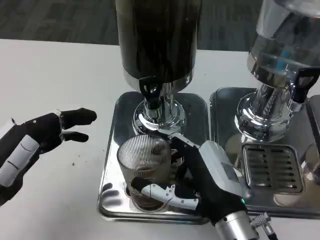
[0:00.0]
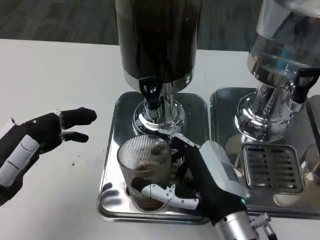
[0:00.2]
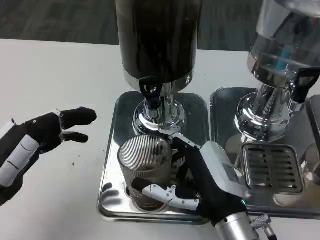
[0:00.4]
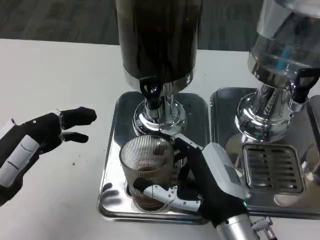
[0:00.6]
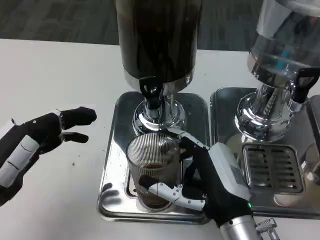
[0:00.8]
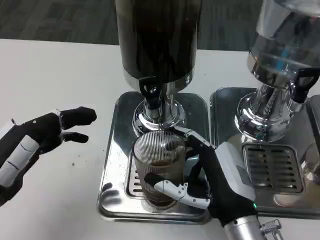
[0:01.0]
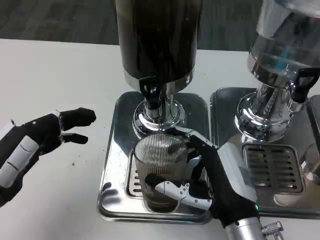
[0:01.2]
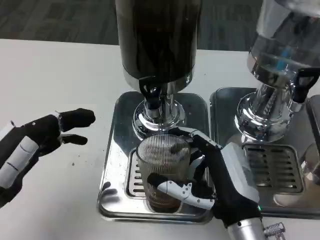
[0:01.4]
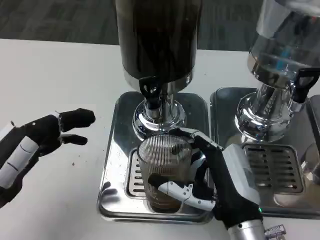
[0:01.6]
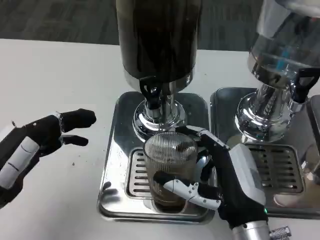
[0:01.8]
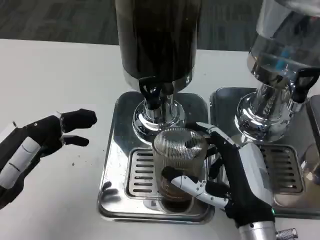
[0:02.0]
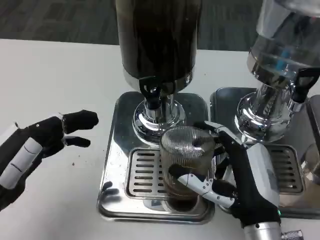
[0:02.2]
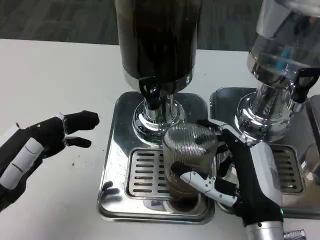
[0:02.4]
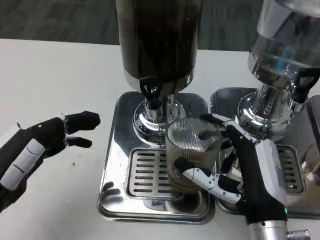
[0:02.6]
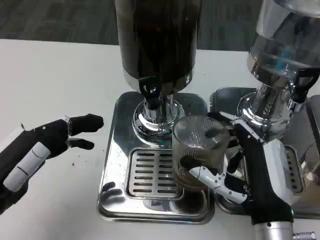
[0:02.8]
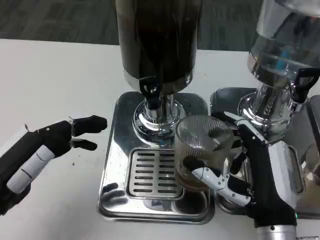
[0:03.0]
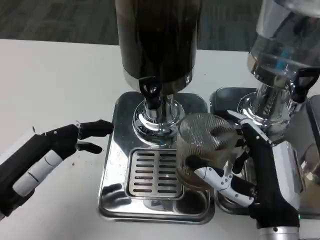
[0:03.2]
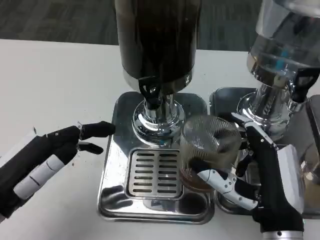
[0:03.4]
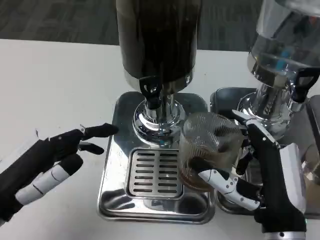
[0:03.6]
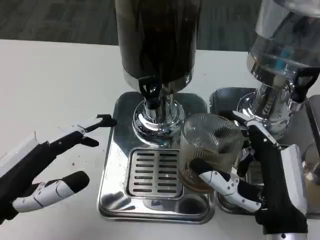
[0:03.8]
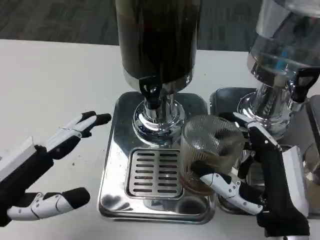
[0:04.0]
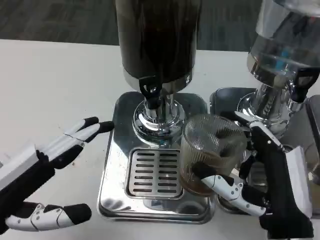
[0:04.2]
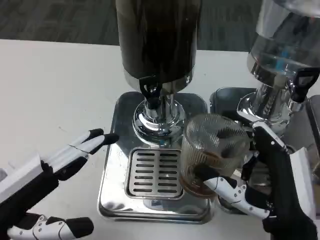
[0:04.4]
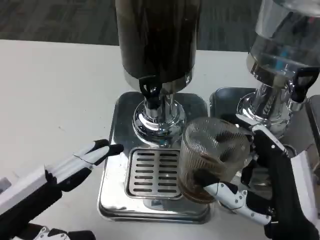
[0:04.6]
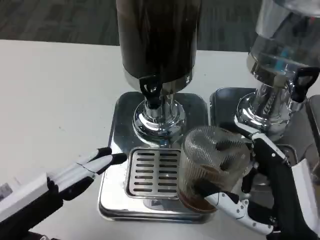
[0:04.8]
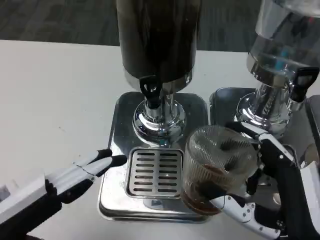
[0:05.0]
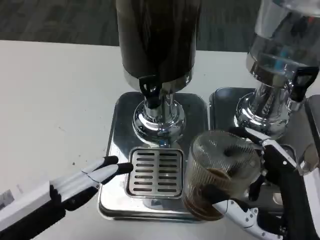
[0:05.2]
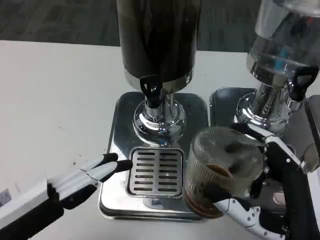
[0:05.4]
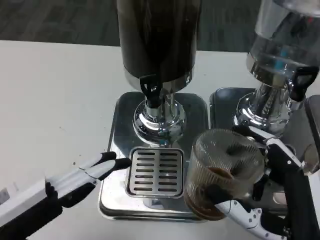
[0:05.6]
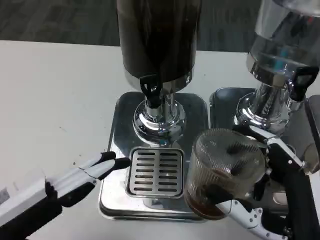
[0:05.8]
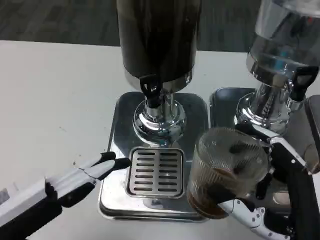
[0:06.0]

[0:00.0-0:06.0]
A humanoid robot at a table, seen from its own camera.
Task of the whole recording: Grasp the cup under the faucet to collect the drink, then remove the cup.
0:00.0 to 0:01.6: The hands make only small movements.

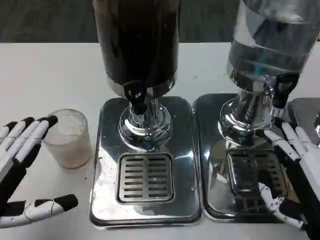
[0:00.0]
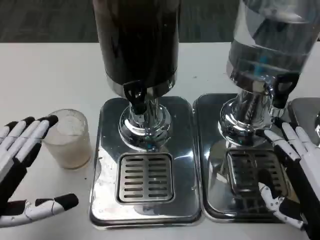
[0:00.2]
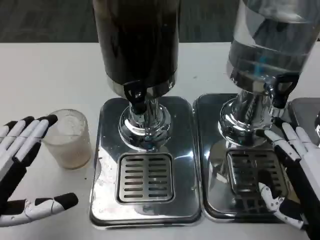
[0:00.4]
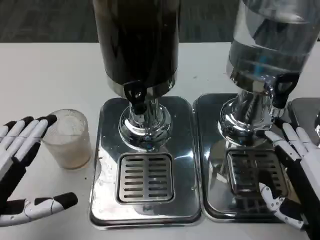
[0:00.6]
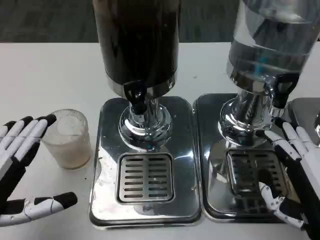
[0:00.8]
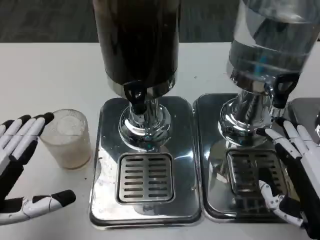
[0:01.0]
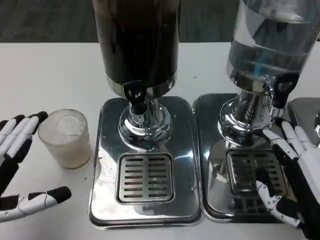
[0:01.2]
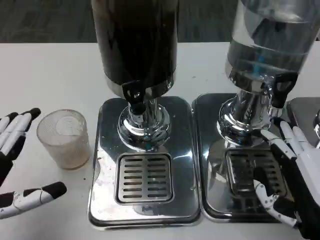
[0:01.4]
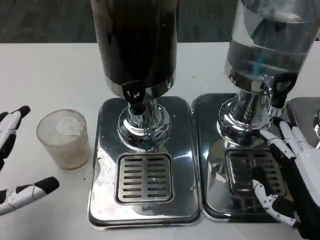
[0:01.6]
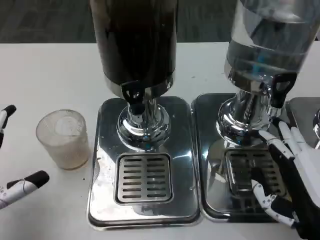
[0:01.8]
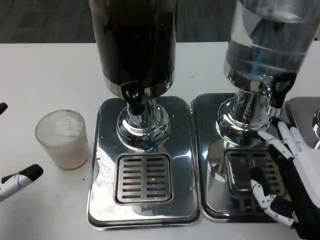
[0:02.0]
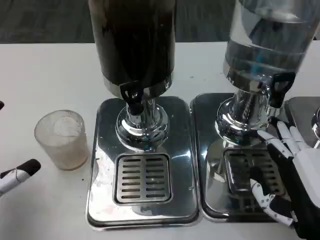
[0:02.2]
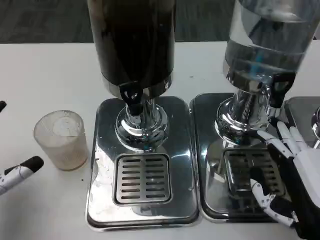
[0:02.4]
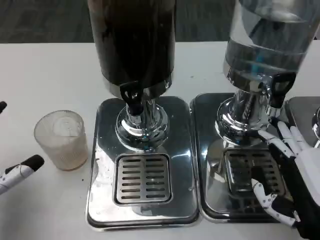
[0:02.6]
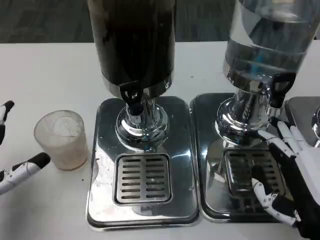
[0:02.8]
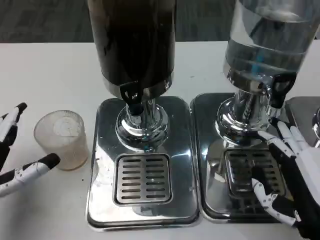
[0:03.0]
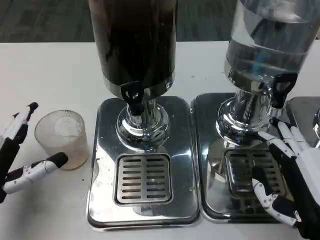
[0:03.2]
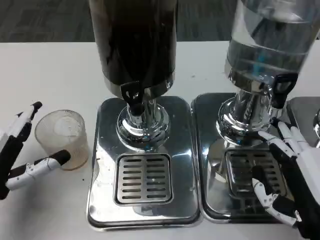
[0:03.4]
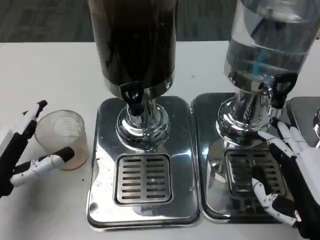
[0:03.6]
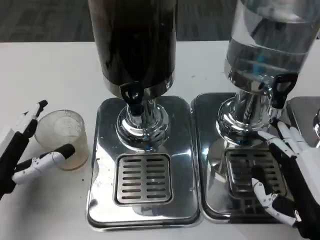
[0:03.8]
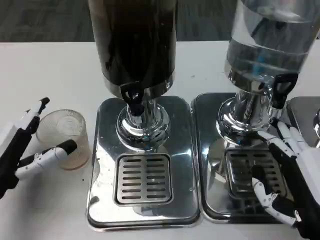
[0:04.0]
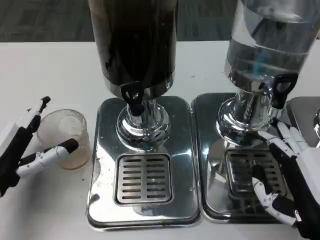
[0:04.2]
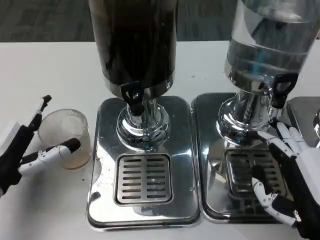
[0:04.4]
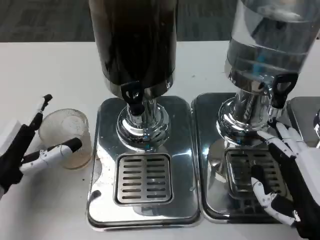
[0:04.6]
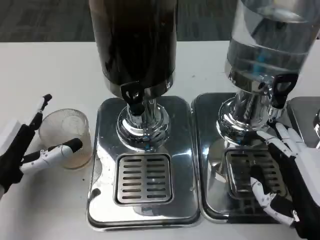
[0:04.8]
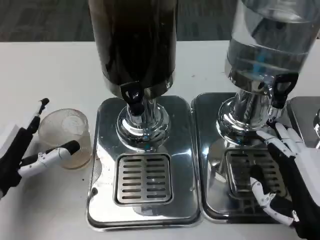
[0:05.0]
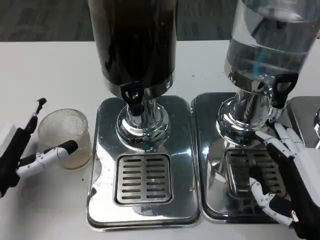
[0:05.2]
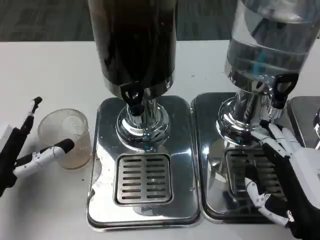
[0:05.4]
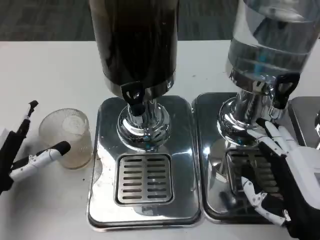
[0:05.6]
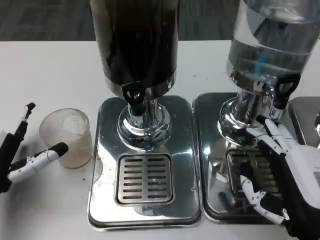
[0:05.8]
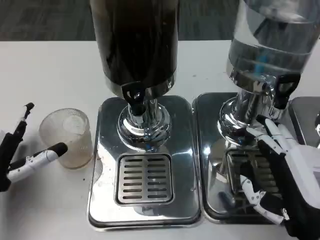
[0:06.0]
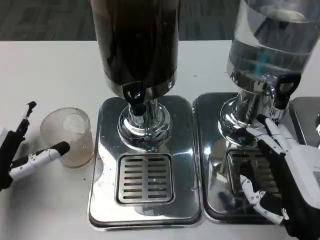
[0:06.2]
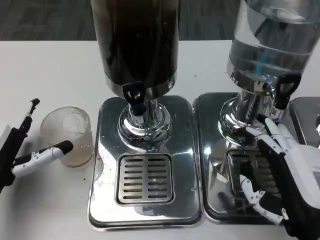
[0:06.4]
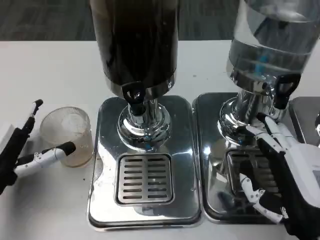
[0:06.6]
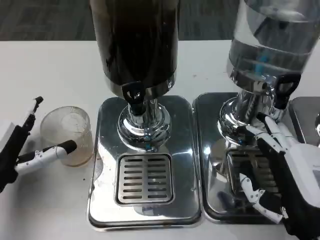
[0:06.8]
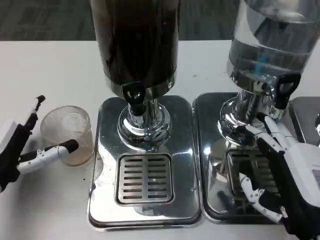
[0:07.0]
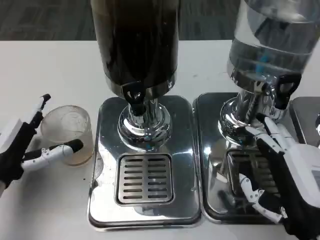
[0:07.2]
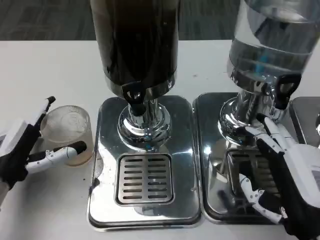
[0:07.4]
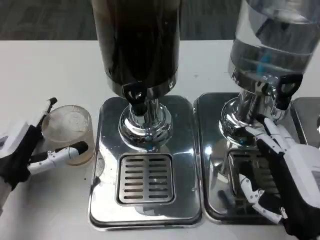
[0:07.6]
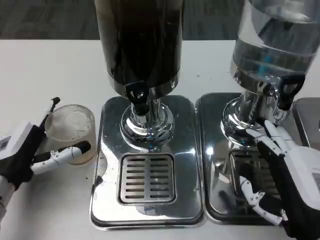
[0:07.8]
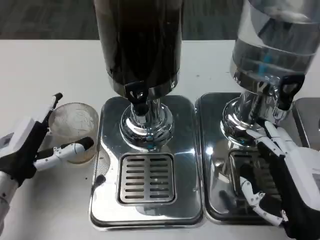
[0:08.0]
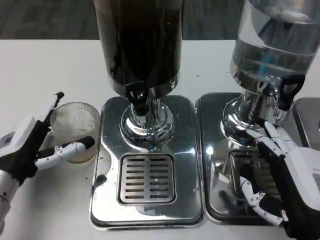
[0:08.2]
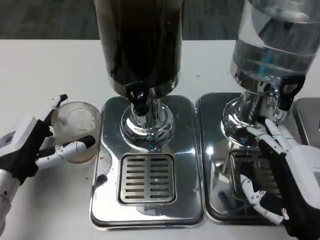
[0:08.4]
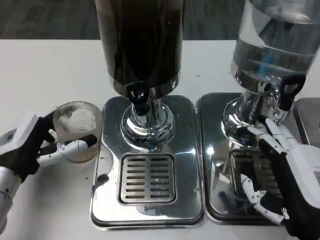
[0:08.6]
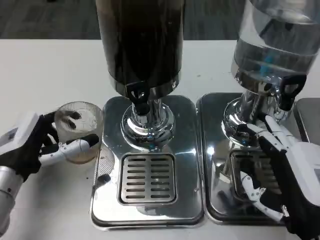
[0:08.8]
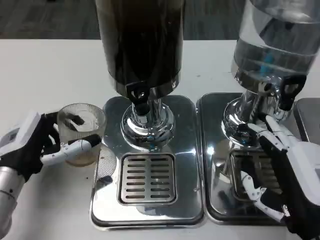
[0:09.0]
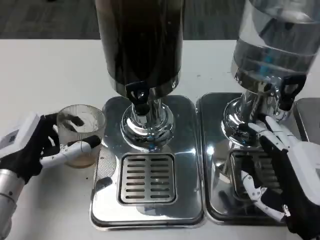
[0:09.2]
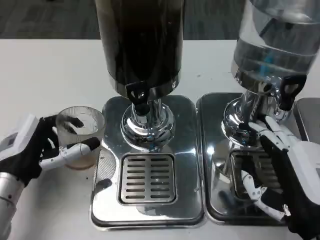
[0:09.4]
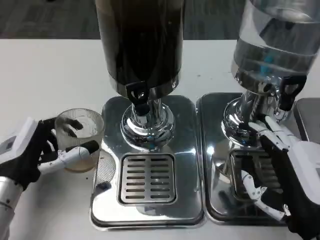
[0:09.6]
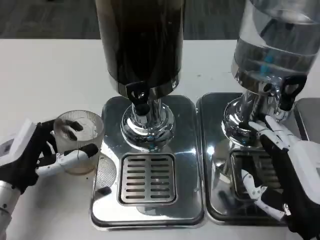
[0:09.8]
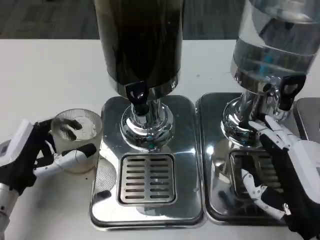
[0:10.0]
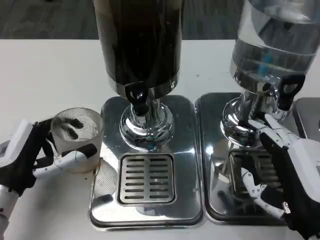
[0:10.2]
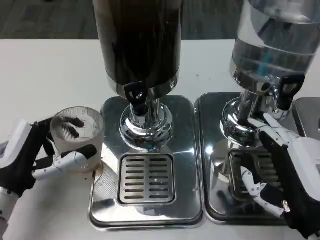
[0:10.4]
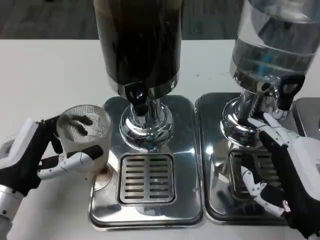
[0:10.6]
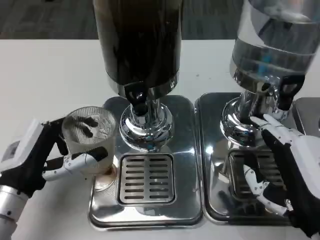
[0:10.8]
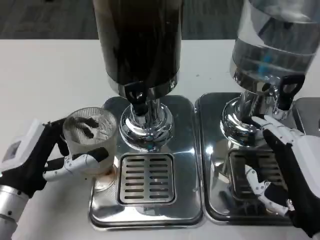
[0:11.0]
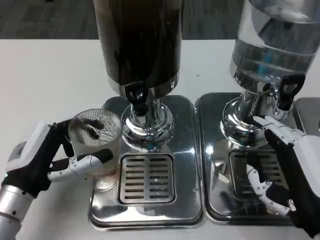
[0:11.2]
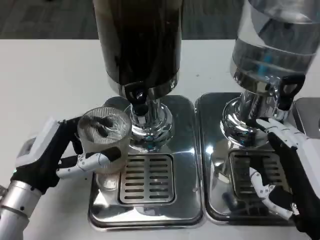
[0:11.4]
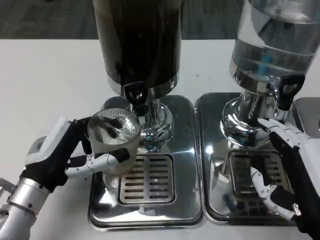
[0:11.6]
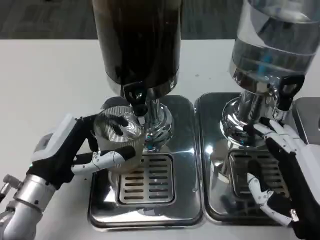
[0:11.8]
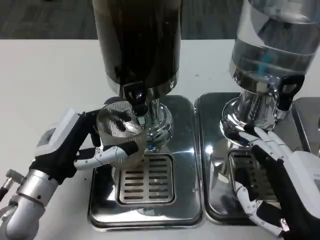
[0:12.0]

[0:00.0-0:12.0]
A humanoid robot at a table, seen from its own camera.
Task of the whole recording: Grasp the cup under the faucet to collect the drink, then remove the cup.
0:00.0 to 0:01.6: There are only small adjustments of the hands.
0:01.6 to 0:03.0: The left hand changes place by approximately 5 cm.
0:03.0 to 0:04.4: The hands stay close to where they were, moving slightly.
0:06.0 to 0:07.6: There are only small adjustments of the hands.
0:10.4 to 0:12.0: The left hand moves approximately 5 cm.

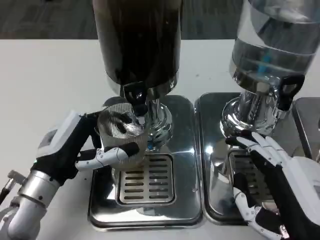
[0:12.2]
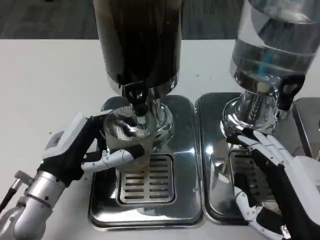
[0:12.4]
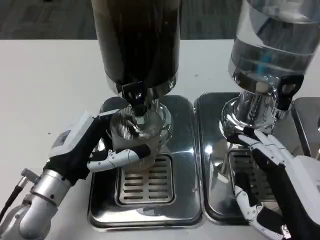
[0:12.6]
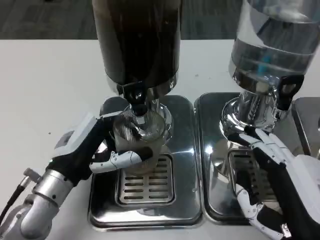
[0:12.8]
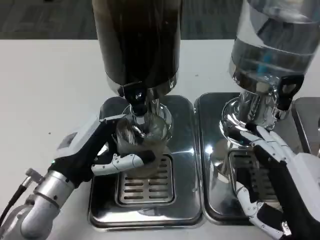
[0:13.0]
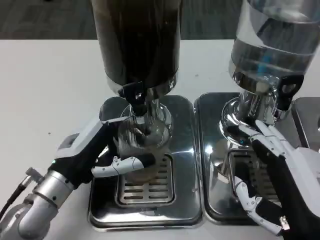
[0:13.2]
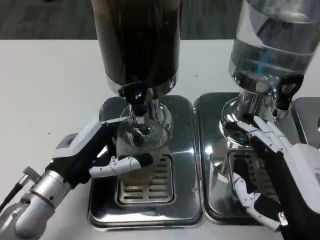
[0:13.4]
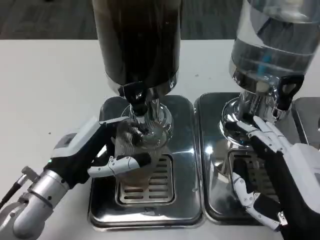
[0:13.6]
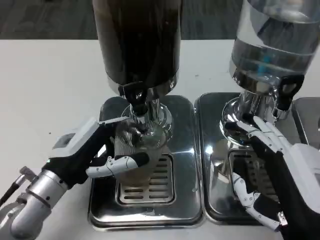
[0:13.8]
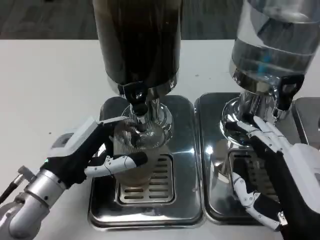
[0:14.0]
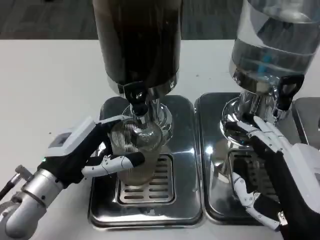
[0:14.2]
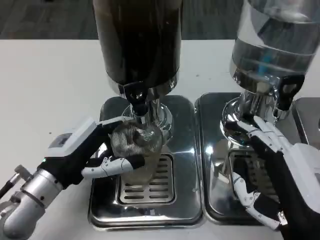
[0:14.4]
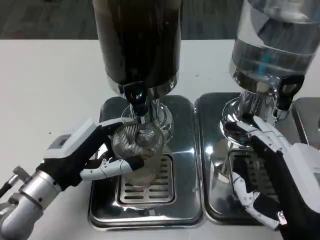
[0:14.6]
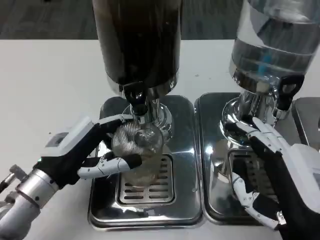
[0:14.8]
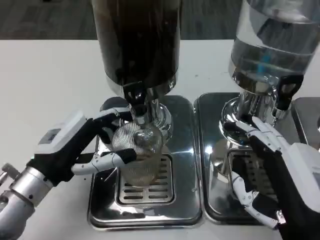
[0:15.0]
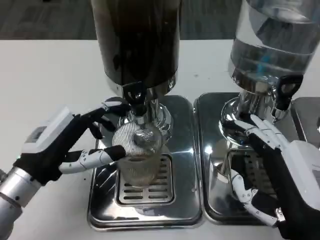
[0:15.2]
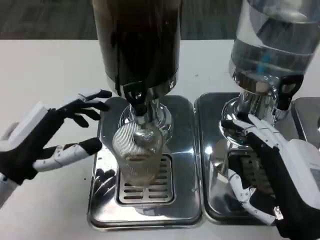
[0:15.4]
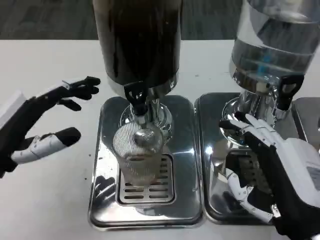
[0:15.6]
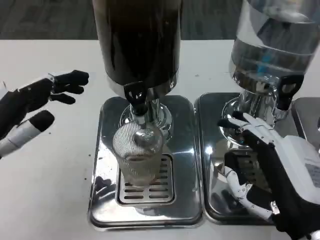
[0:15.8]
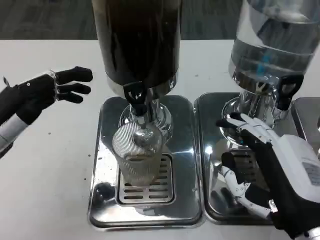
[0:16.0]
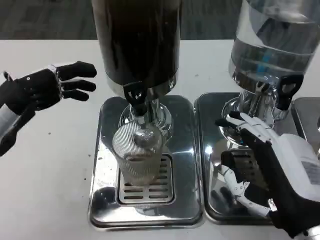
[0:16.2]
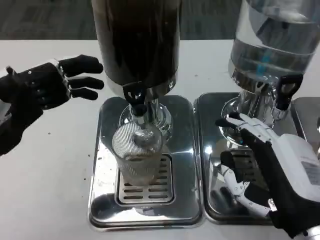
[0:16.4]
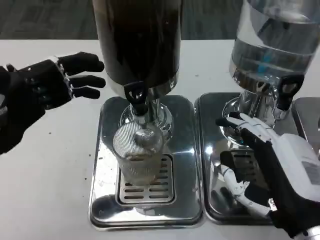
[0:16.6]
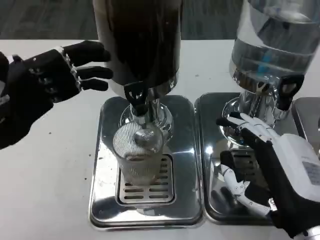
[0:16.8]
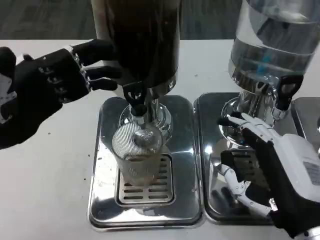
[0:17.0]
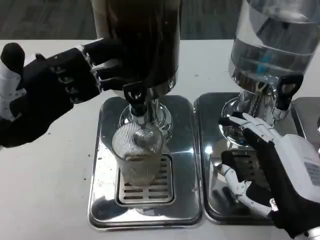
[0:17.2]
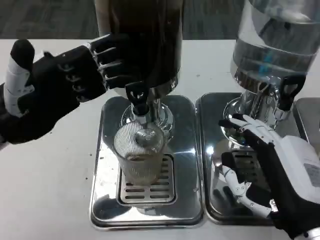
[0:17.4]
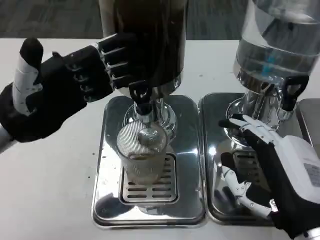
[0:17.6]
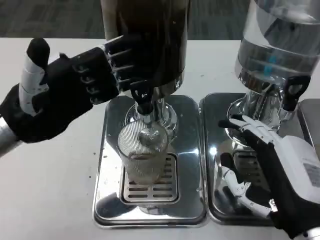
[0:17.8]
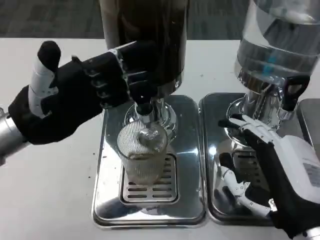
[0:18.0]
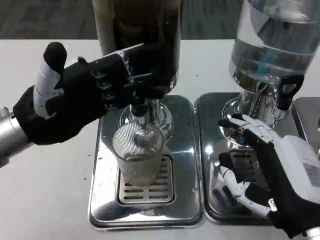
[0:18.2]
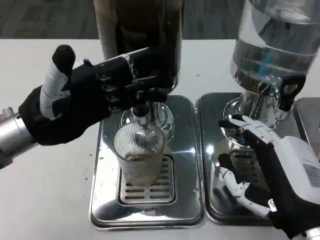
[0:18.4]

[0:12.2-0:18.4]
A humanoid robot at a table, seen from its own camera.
Task of the whole recording: Grasp the cup under the faucet to collect the drink, then remove the cup.
0:12.2 to 0:13.8: The hands move only a little.
0:13.8 to 0:15.4: The left hand travels to the left by approximately 5 cm.
0:15.4 to 0:16.8: The left hand heads upward, covering about 5 cm.
0:16.8 to 0:18.4: The left hand is displaced to the right by some 5 cm.
